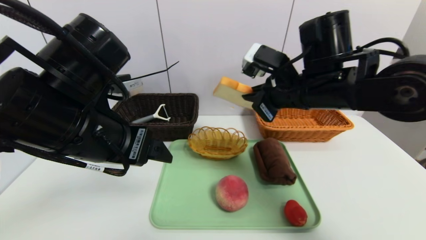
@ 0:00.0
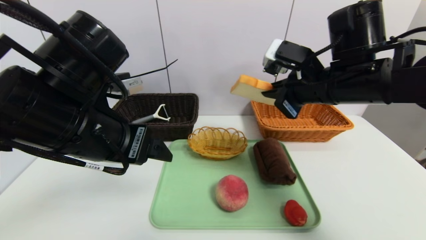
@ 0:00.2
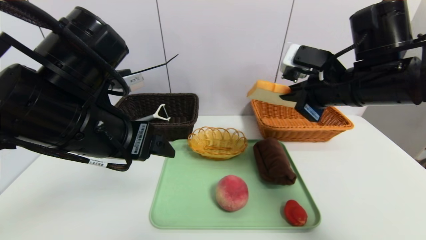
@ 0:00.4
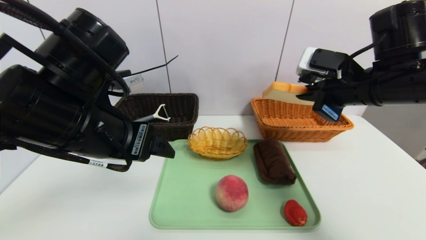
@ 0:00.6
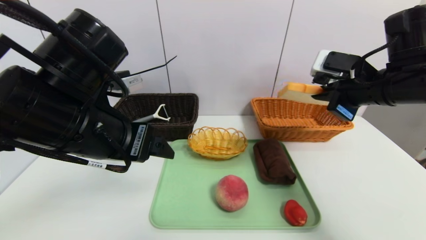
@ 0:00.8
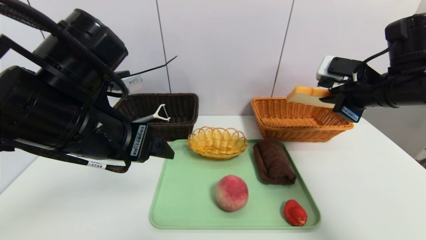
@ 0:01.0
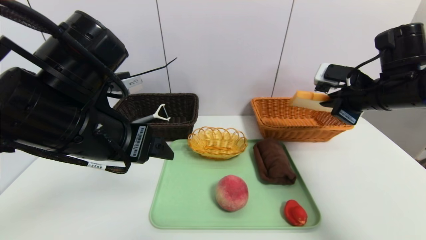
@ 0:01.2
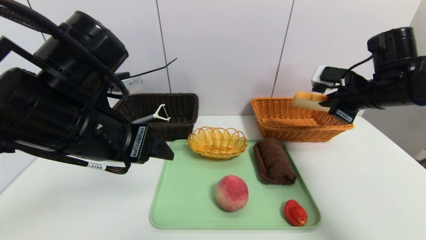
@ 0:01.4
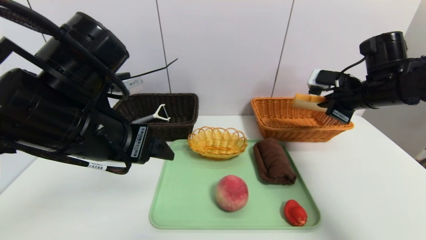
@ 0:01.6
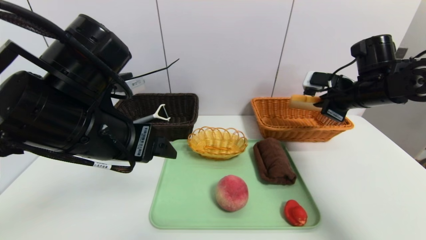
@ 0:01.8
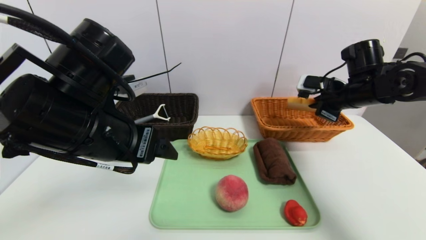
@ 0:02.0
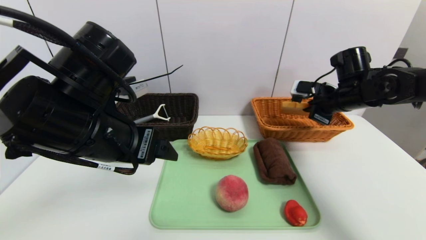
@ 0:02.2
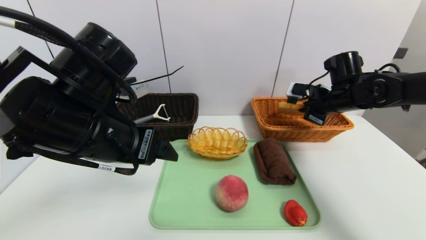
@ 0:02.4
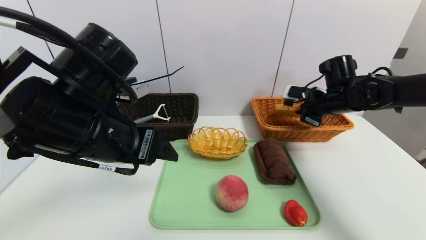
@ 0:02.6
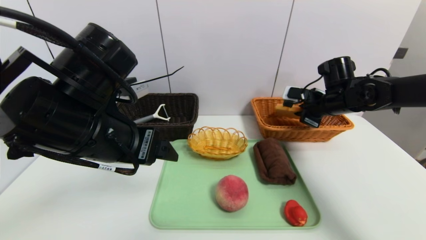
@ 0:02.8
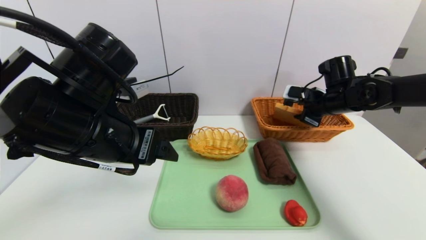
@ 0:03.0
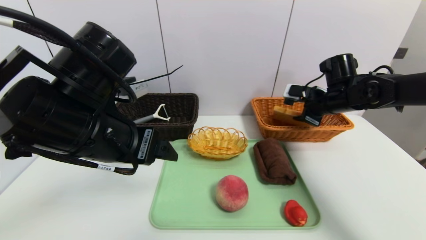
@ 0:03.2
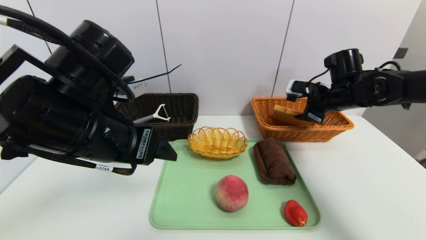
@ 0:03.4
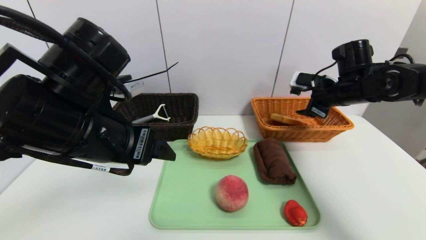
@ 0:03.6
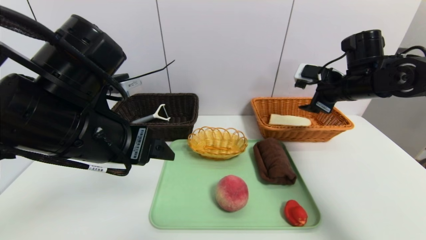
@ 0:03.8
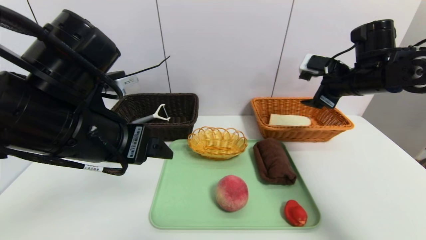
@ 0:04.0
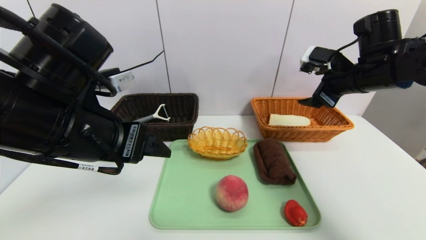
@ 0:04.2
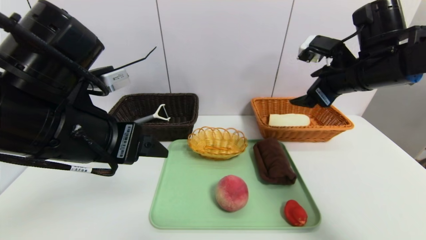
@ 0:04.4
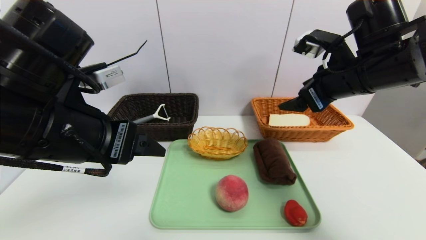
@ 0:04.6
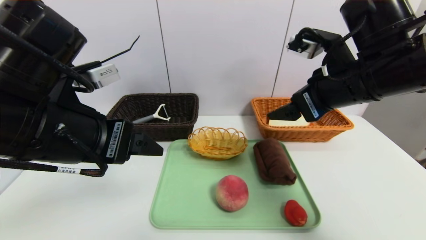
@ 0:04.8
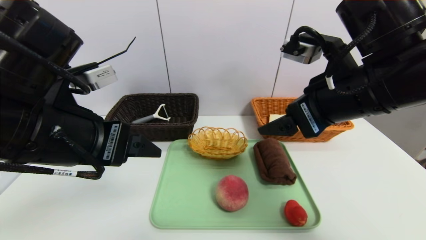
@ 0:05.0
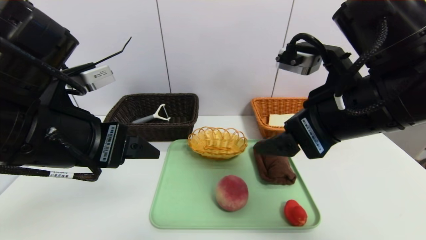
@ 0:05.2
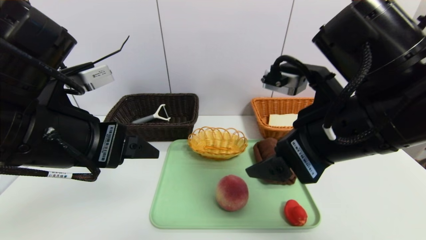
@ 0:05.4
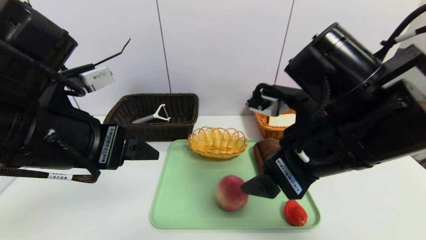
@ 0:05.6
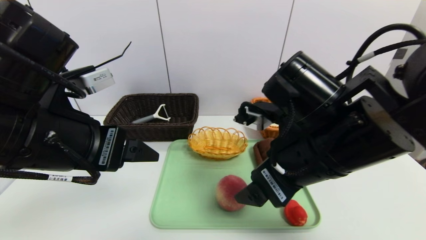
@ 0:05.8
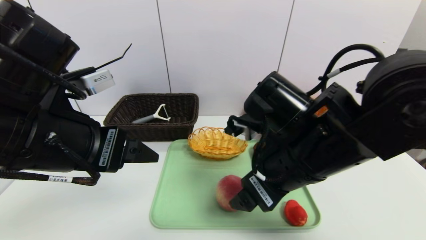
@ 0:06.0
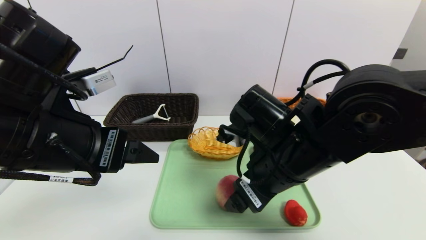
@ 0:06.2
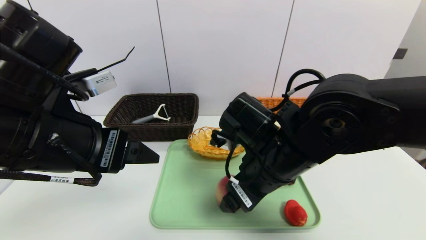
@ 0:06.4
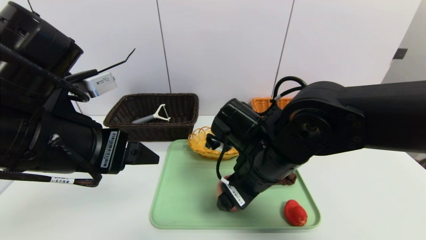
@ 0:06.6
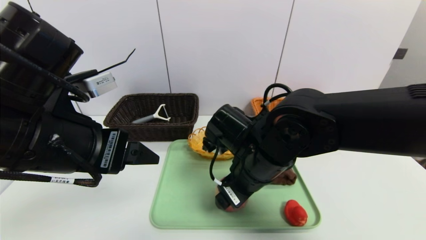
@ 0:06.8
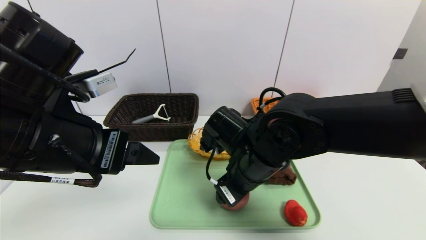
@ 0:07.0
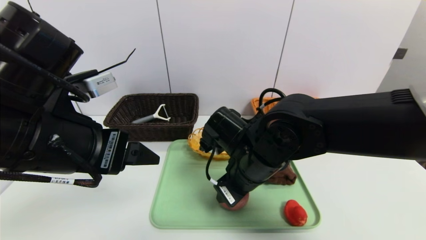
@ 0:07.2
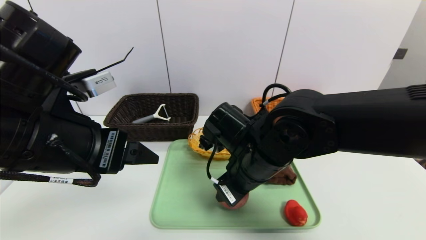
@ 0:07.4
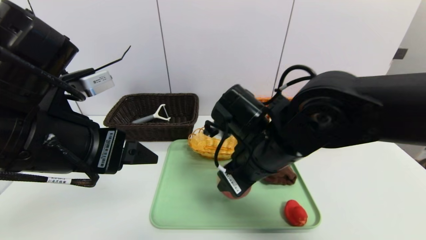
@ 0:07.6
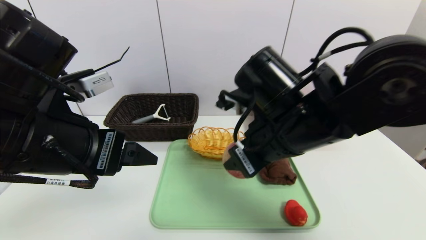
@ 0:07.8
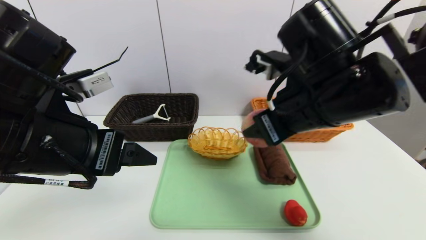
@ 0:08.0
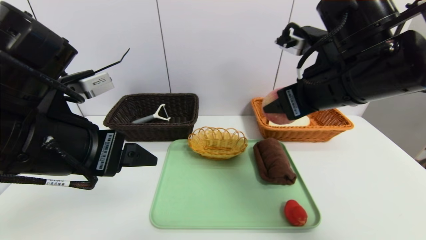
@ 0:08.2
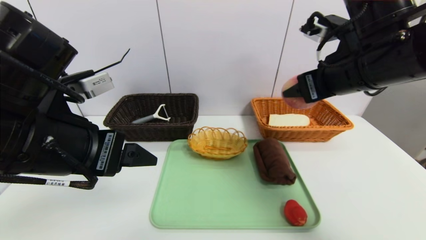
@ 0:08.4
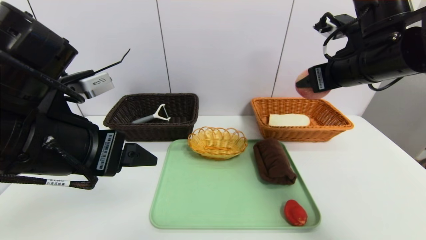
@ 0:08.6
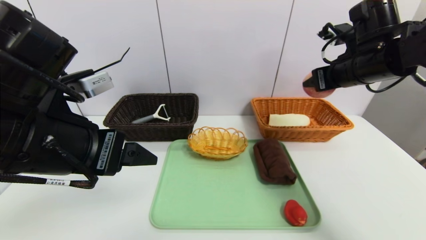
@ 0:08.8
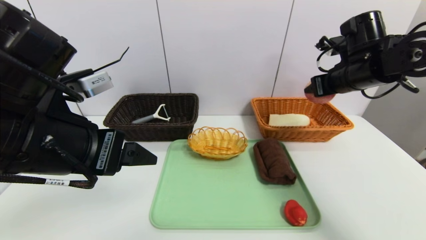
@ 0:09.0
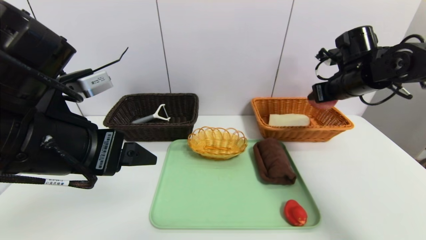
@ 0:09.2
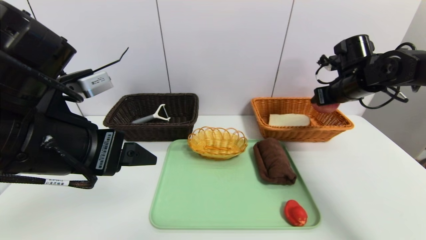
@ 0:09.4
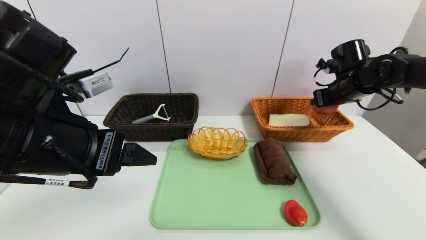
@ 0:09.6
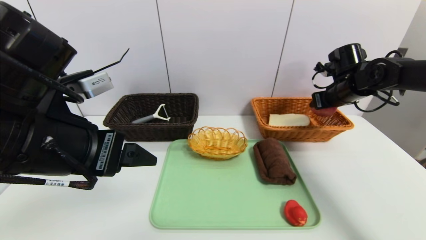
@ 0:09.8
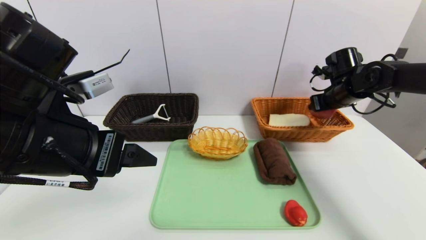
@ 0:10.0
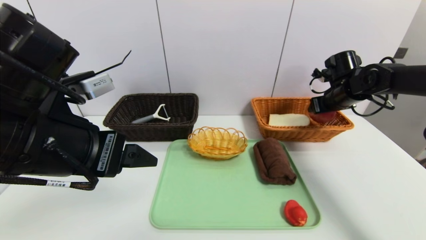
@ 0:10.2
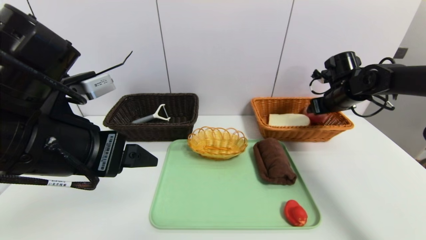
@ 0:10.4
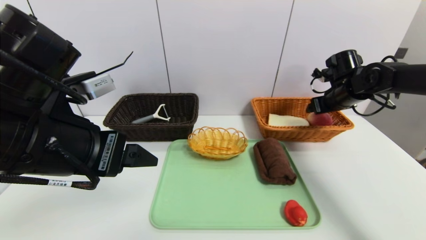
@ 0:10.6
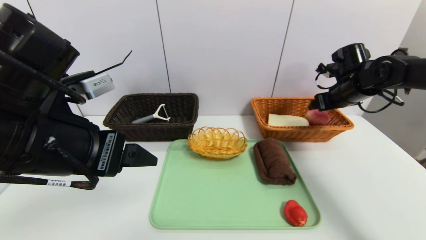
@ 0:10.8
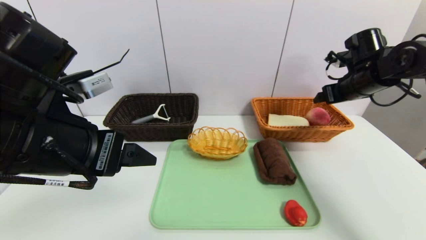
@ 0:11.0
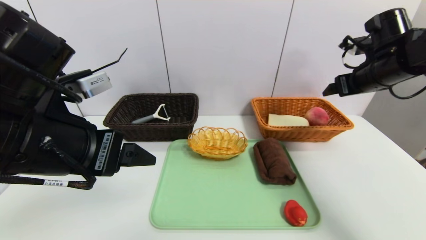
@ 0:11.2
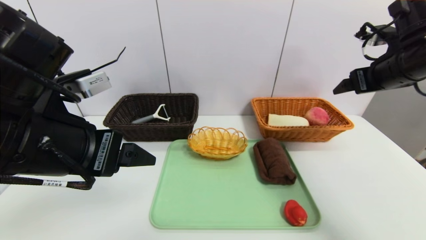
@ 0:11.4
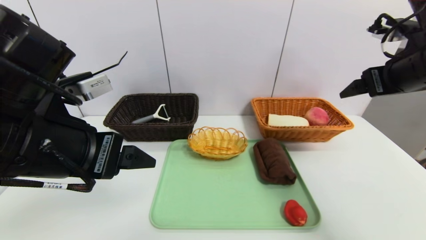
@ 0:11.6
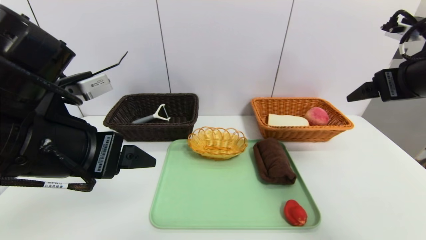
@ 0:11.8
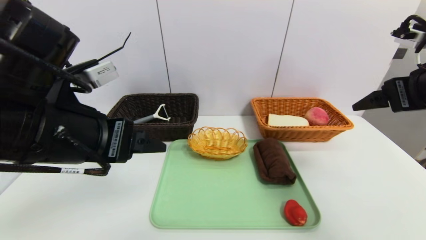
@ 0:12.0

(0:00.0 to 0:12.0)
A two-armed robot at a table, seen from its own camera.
Task of the whole recording: place the food in the right basket with the right gripper, and place the non food items in the left basket with the left gripper.
Step, 0:00.0 - 0:03.6: Grasp the bread slice and put it in the right basket.
Step, 0:03.8 - 0:10.6: Grasp the peach and put it in the right basket.
0:00.0 - 0:01.6: The right gripper goes some 15 cm to the right.
0:01.6 - 0:03.0: The right gripper heads forward and downward, covering about 10 cm, and opens.
0:03.0 - 0:04.4: The right gripper is displaced upward and backward by approximately 15 cm, and opens its fingers.
0:04.4 - 0:06.0: The right gripper shifts some 20 cm to the left, backward and downward.
0:06.0 - 0:07.6: The right gripper closes its fingers.
0:07.6 - 0:09.0: The right gripper goes approximately 25 cm to the right and forward.
0:09.0 - 0:10.4: The right gripper is displaced downward and forward by about 10 cm.
0:10.4 - 0:12.0: The right gripper heads backward and upward, covering some 25 cm.

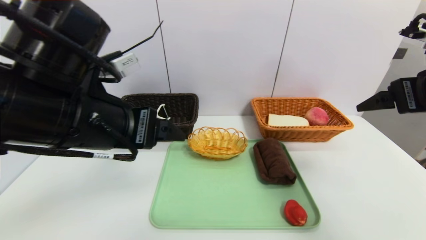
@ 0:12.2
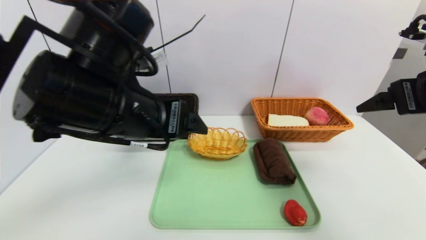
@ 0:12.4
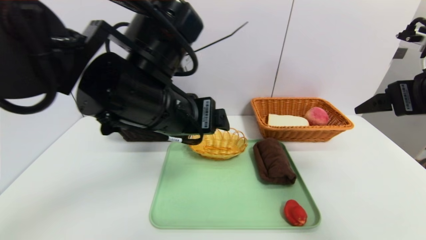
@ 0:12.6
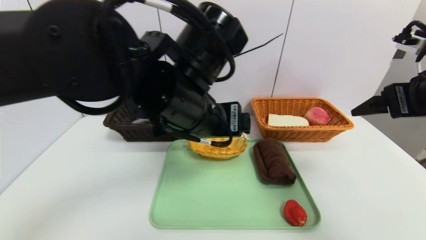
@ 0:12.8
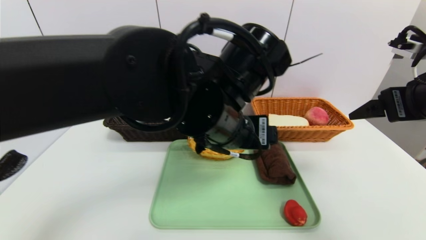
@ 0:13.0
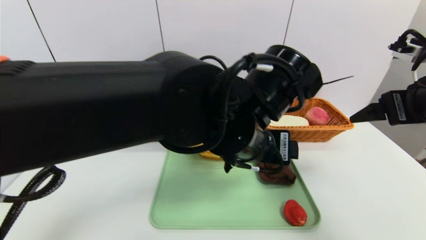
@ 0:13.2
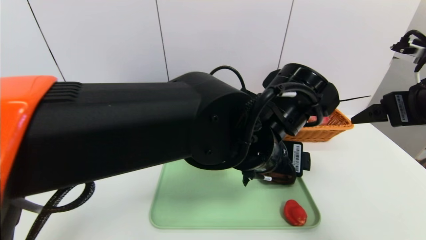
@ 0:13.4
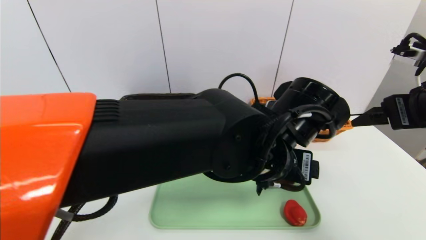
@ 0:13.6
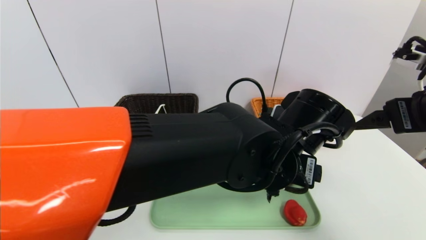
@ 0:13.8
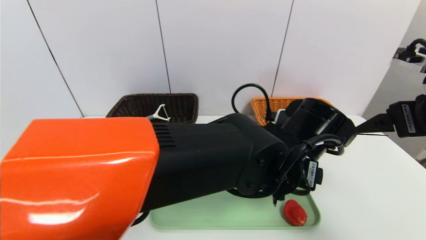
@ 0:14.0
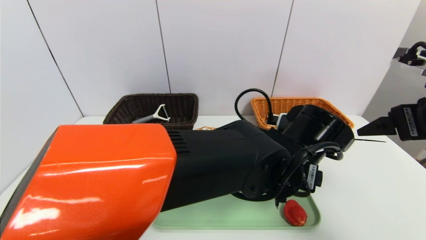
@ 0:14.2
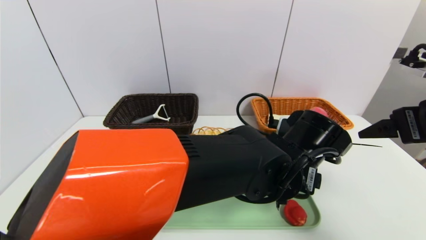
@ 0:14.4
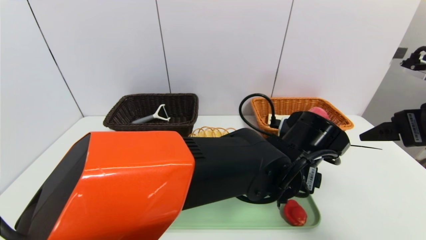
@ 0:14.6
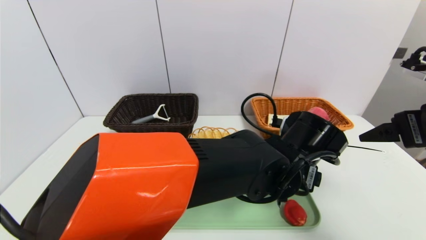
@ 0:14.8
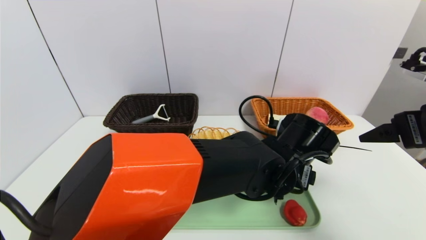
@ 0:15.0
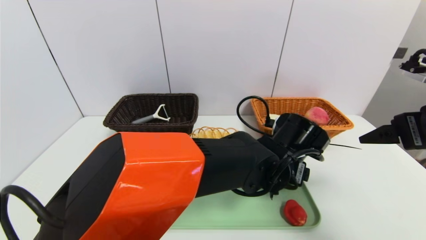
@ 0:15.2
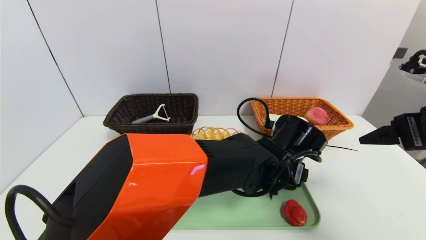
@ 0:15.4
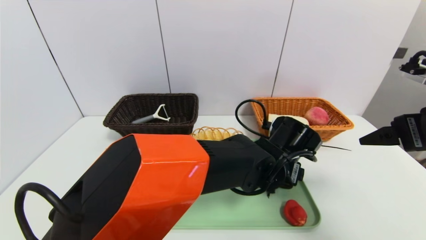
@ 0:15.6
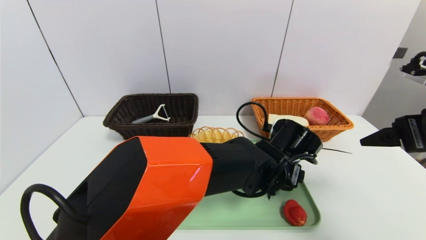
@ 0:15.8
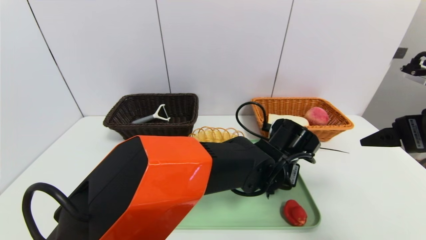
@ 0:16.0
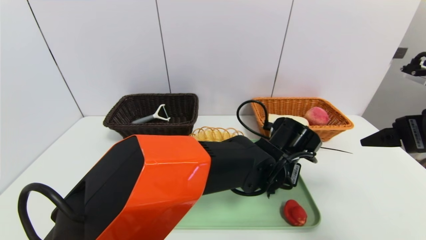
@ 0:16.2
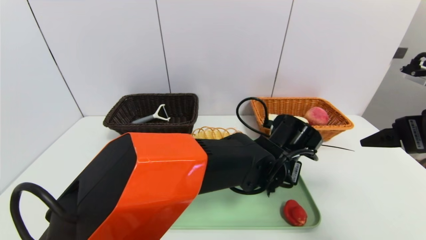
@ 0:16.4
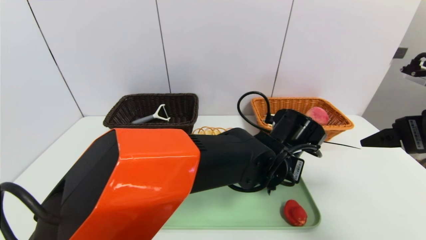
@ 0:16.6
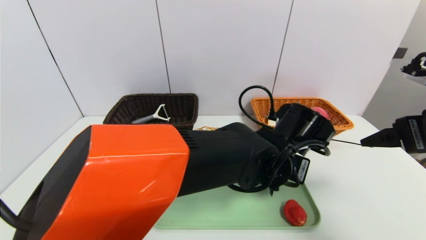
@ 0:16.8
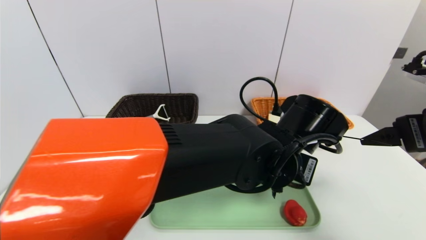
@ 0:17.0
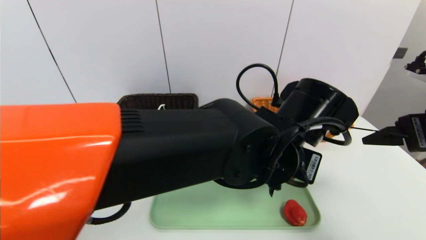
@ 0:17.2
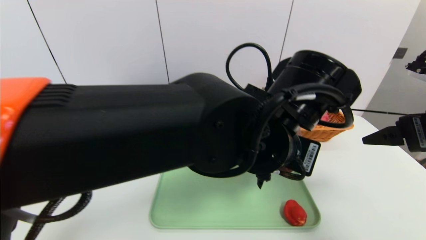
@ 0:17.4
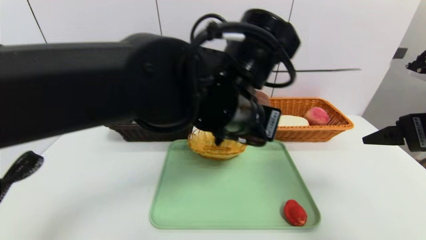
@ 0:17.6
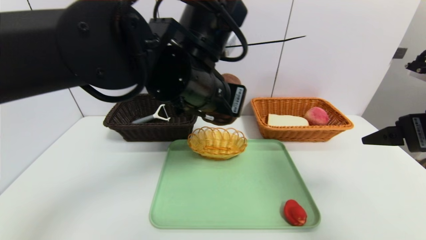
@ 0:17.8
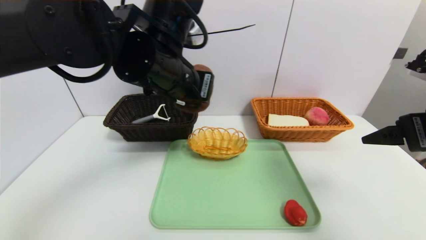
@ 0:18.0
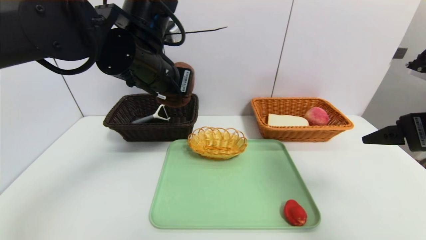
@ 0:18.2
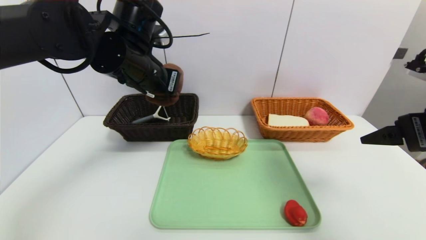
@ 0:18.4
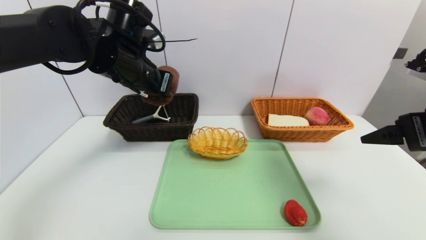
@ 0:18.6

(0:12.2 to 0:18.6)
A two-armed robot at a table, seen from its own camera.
Task of the whole recording: place the food in the right basket with the right gripper, and place the non food items in the left basket with the left gripper.
0:12.2 - 0:13.8: The left gripper travels to the right by about 25 cm.
0:13.8 - 0:15.4: The left gripper travels downward by about 5 cm.
0:15.4 - 0:17.0: The left gripper heads upward, covering roughly 5 cm, and closes.
0:17.0 - 0:18.6: The left gripper heads to the left, upward and forward, covering roughly 30 cm.
